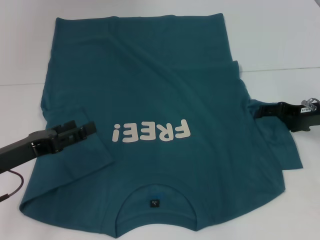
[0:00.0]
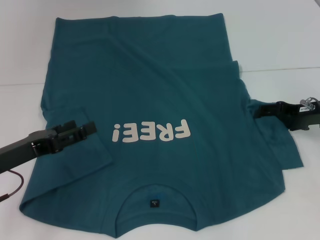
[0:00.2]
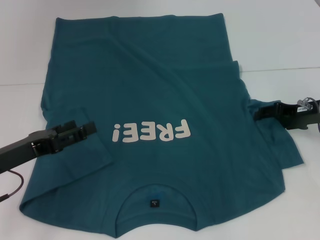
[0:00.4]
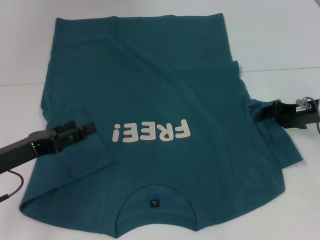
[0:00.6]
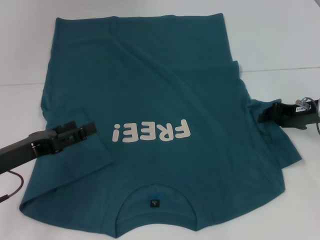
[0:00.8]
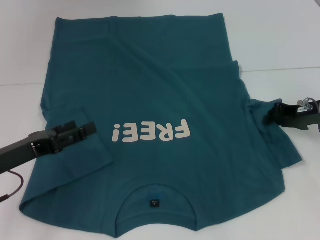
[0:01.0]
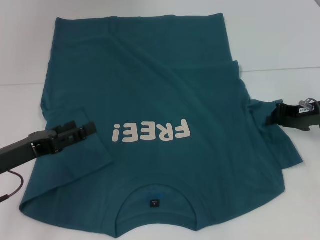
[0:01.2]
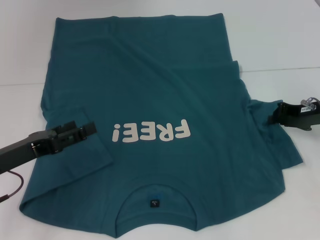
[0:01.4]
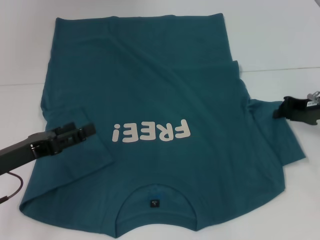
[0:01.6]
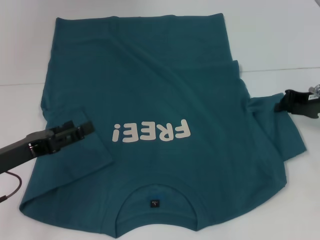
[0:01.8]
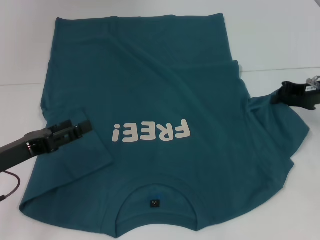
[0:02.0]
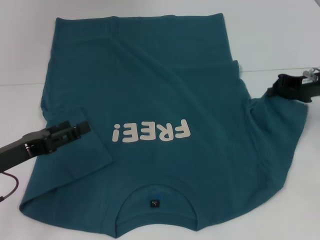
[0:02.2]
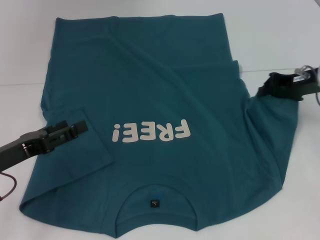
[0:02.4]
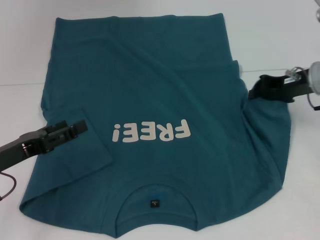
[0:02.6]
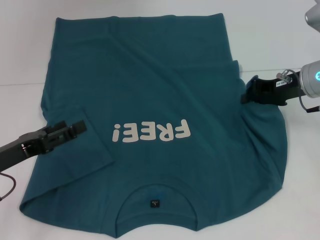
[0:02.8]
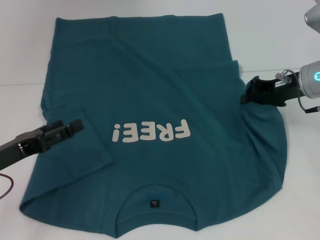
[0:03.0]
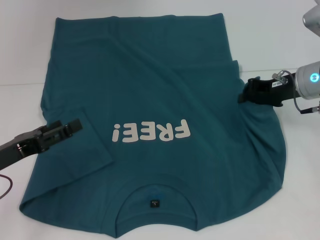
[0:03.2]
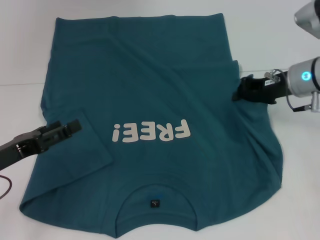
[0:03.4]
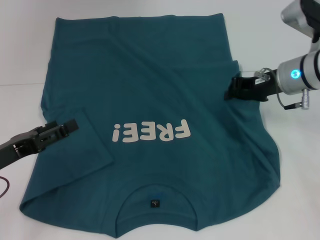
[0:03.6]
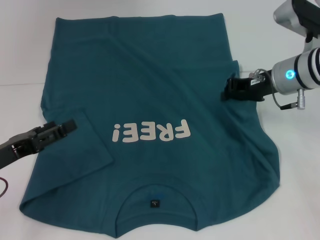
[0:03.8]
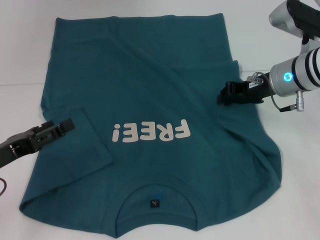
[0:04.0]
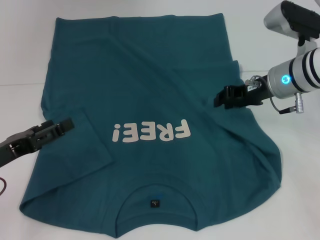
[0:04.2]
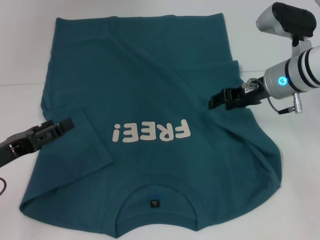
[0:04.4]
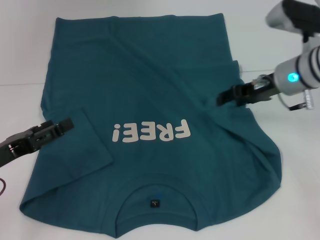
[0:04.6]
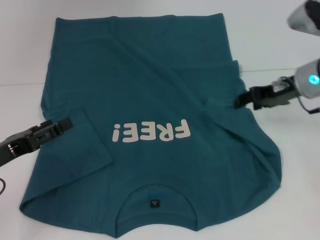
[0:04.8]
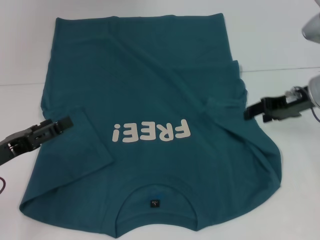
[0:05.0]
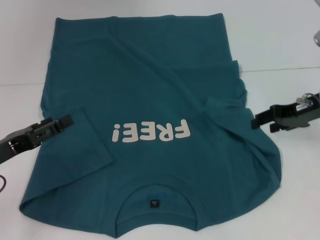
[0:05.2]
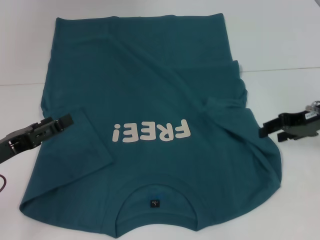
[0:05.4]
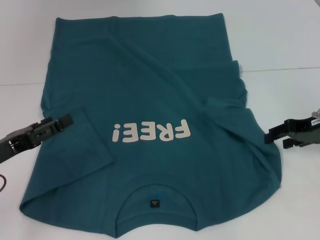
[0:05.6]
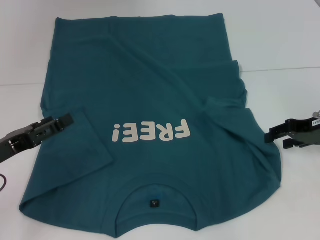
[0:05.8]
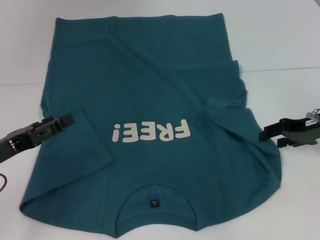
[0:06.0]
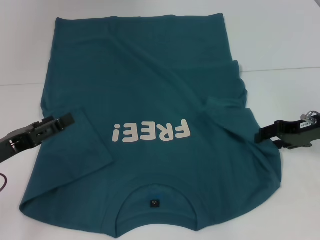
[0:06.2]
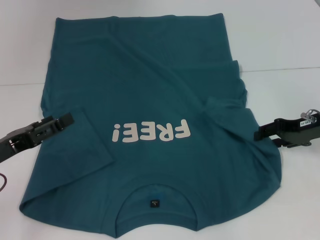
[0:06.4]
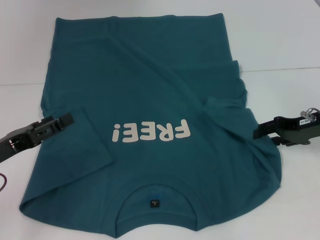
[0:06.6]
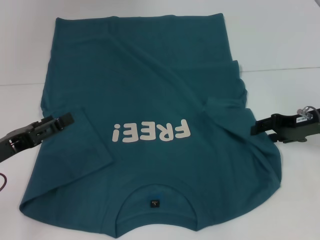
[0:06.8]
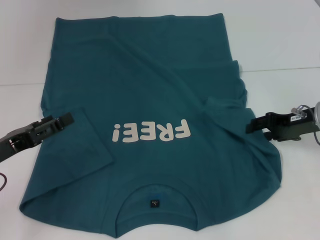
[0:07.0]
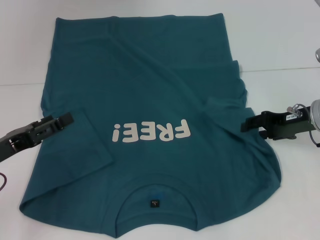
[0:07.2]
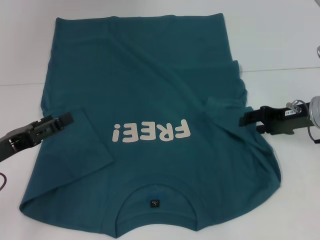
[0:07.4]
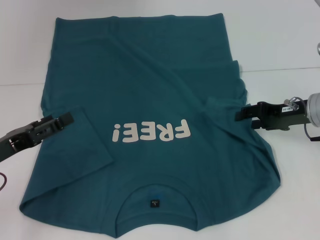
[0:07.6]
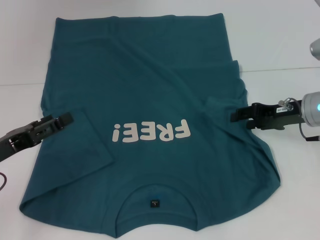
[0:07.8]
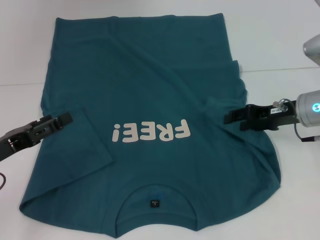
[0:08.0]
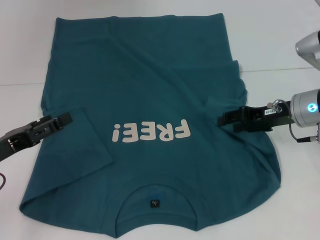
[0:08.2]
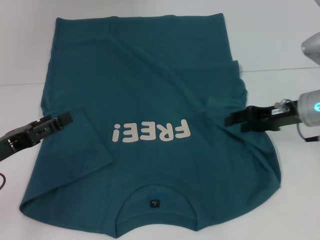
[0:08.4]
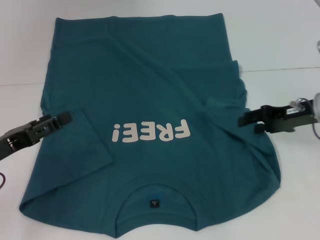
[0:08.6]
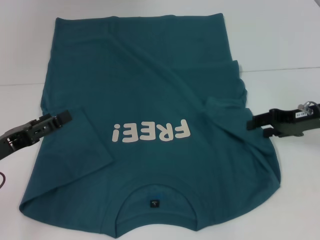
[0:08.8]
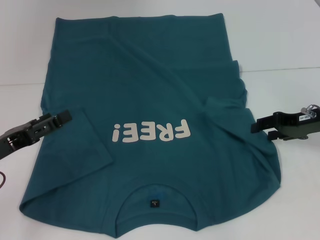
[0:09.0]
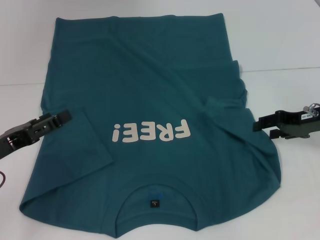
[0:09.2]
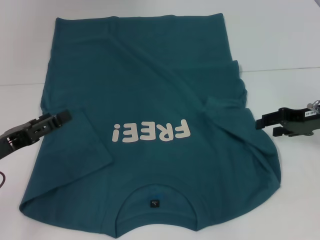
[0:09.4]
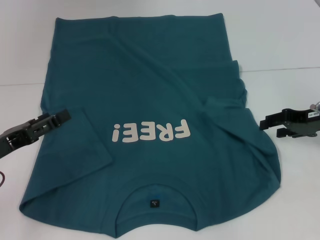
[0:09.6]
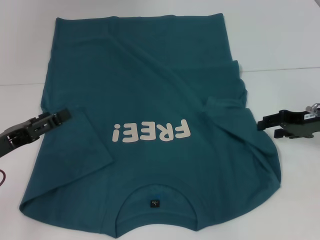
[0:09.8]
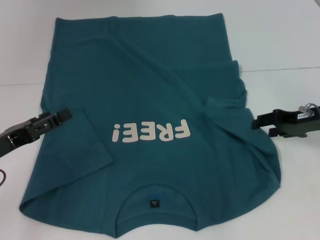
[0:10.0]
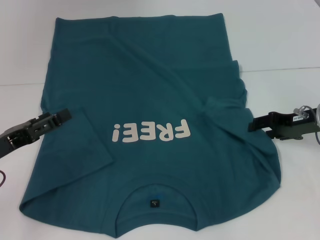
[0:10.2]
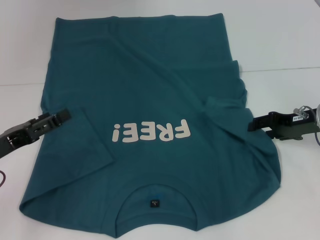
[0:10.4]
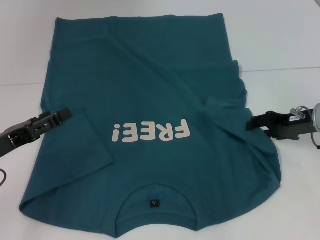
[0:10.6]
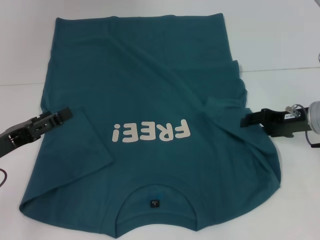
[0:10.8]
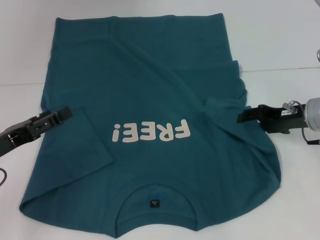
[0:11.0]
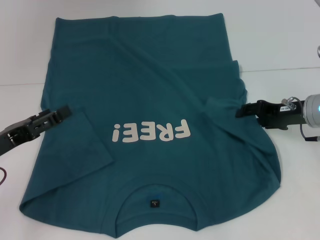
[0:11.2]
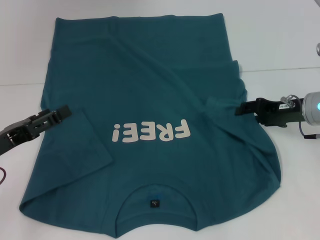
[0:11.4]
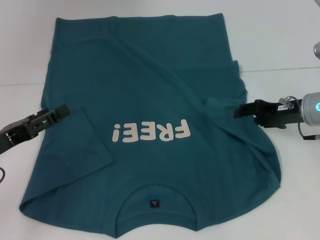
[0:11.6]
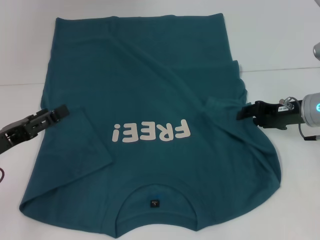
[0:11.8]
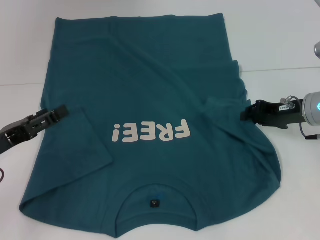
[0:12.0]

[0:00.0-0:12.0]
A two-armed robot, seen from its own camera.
0:00.0 to 0:01.6: The right gripper closes up.
0:01.6 to 0:03.0: The right gripper travels to the left by some 5 cm.
0:03.0 to 0:04.4: The right gripper is displaced to the left by some 5 cm.
0:04.4 to 0:06.0: The right gripper travels to the right and backward by about 10 cm.
0:06.0 to 0:12.0: The grippers move only a little.

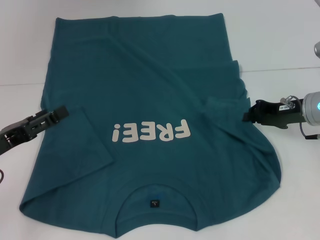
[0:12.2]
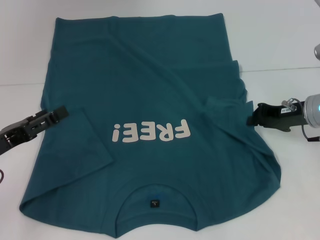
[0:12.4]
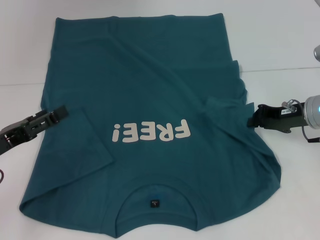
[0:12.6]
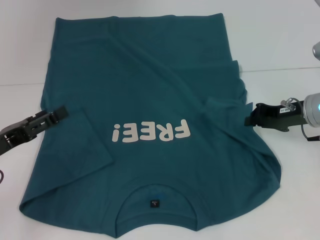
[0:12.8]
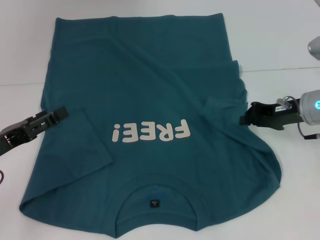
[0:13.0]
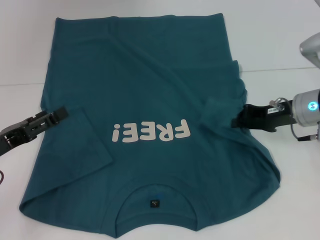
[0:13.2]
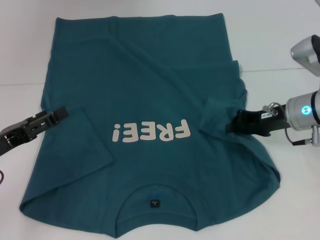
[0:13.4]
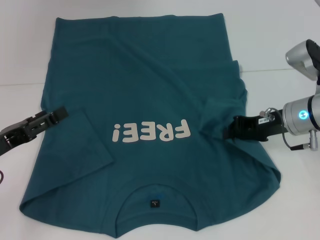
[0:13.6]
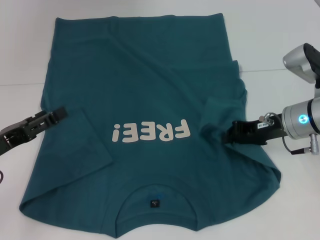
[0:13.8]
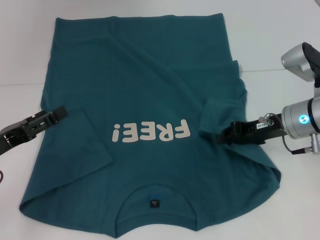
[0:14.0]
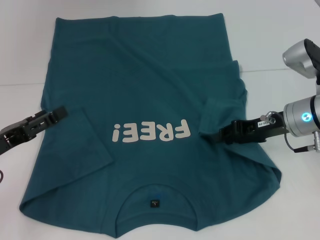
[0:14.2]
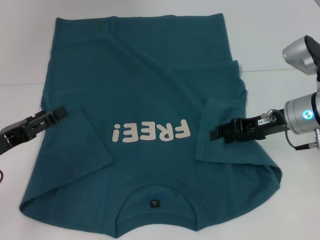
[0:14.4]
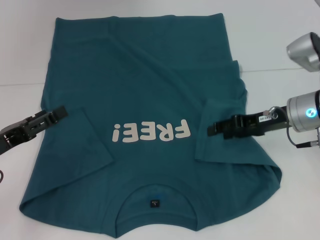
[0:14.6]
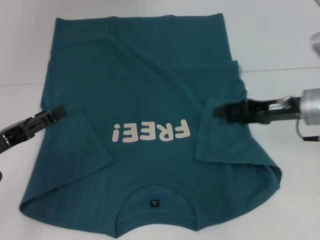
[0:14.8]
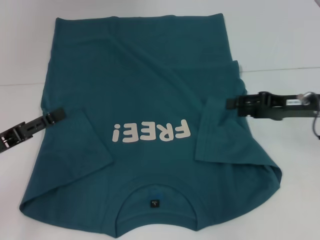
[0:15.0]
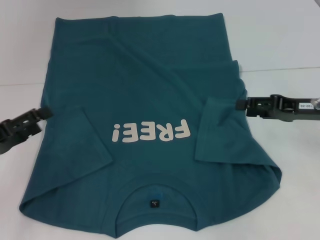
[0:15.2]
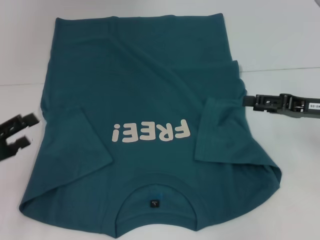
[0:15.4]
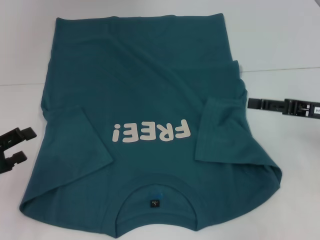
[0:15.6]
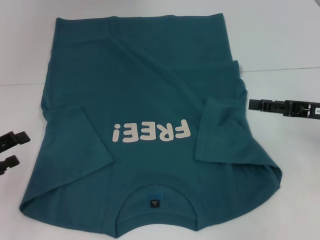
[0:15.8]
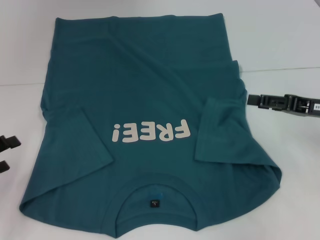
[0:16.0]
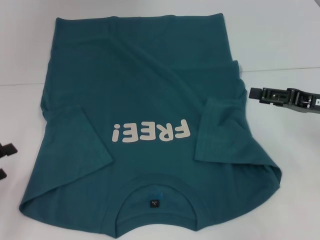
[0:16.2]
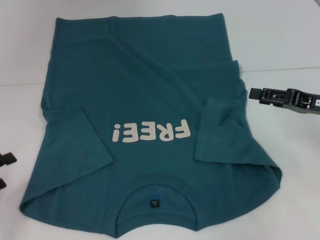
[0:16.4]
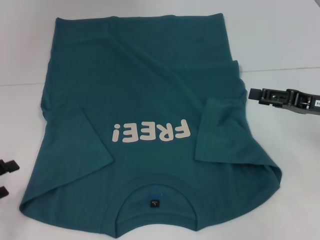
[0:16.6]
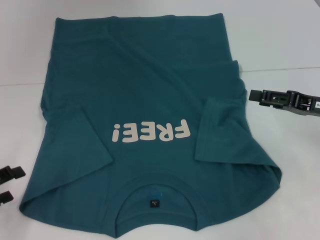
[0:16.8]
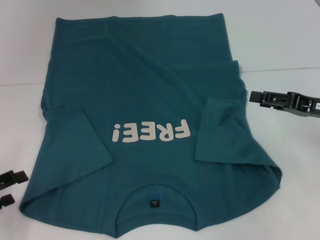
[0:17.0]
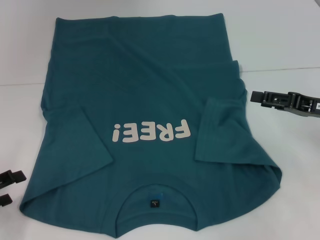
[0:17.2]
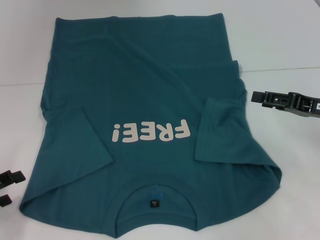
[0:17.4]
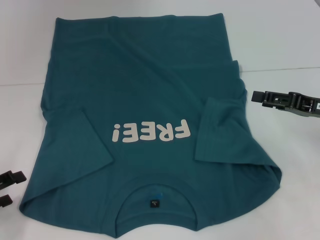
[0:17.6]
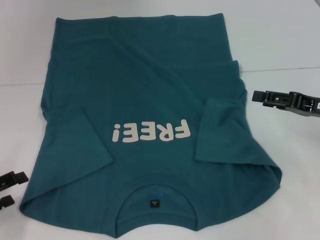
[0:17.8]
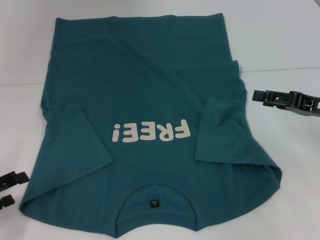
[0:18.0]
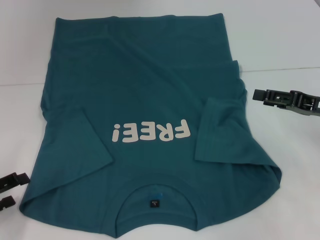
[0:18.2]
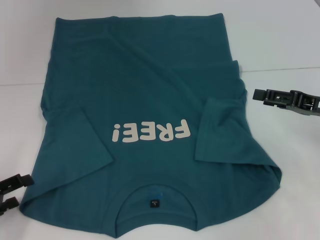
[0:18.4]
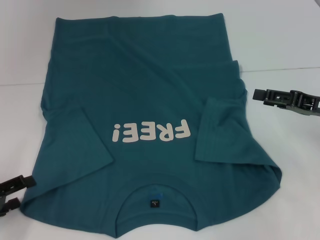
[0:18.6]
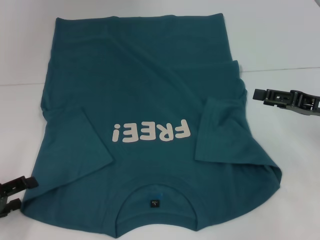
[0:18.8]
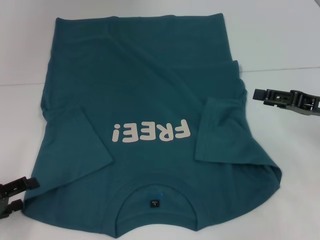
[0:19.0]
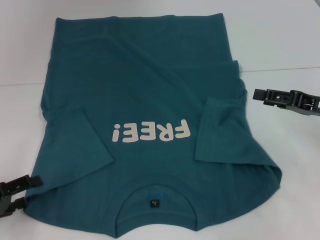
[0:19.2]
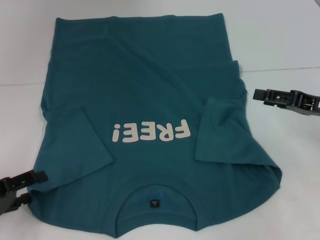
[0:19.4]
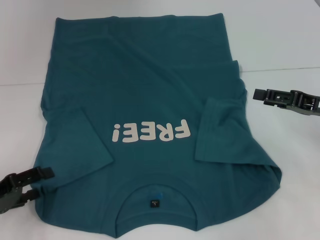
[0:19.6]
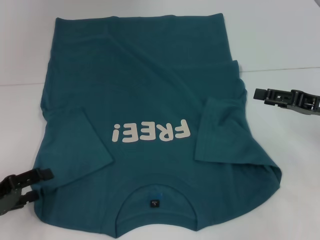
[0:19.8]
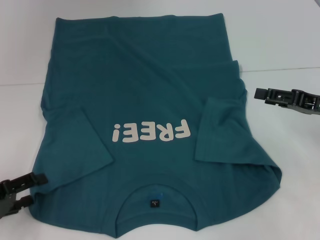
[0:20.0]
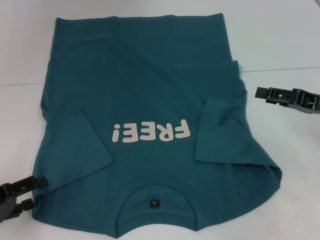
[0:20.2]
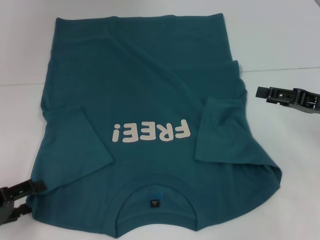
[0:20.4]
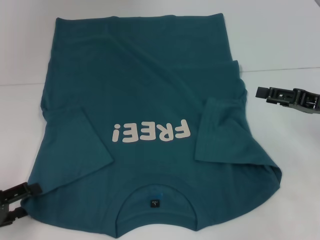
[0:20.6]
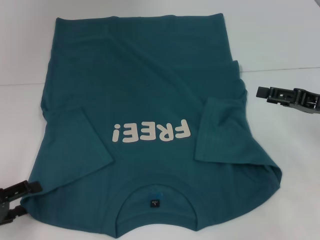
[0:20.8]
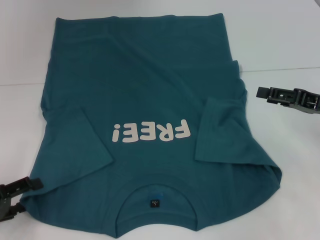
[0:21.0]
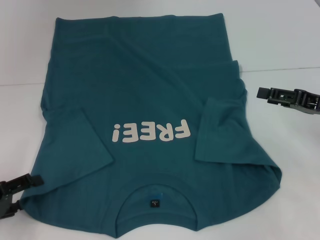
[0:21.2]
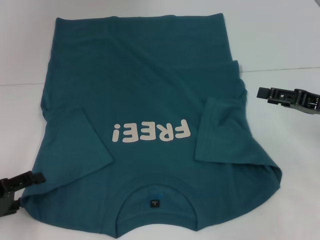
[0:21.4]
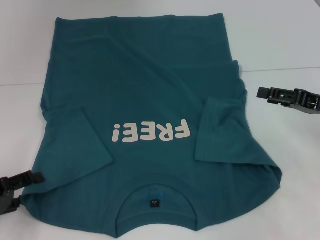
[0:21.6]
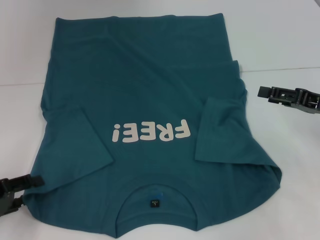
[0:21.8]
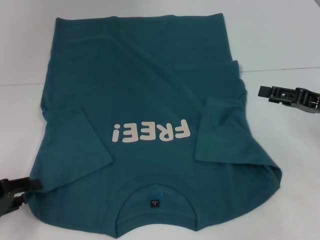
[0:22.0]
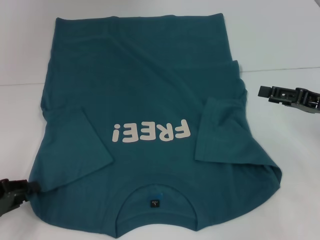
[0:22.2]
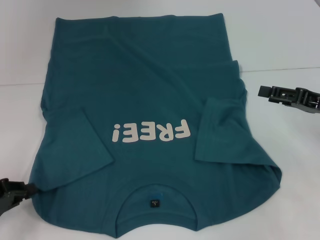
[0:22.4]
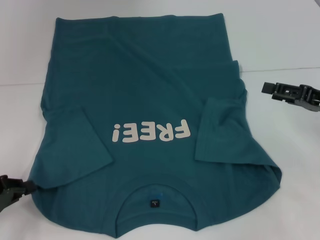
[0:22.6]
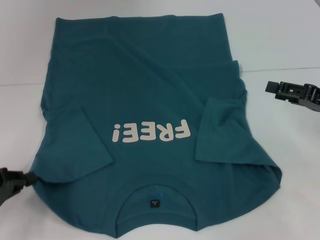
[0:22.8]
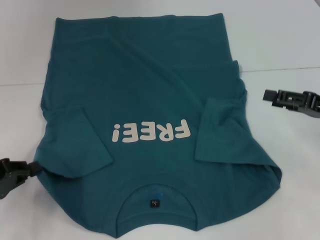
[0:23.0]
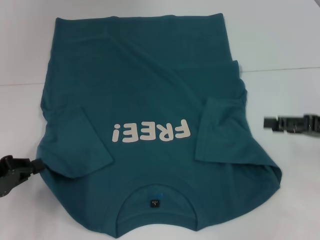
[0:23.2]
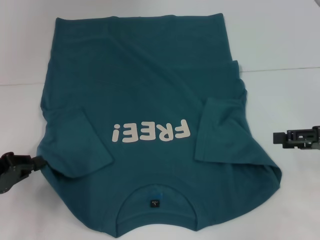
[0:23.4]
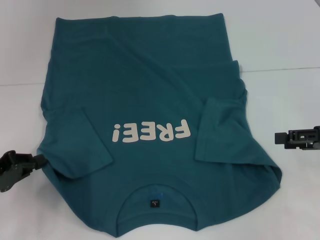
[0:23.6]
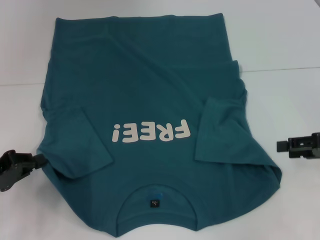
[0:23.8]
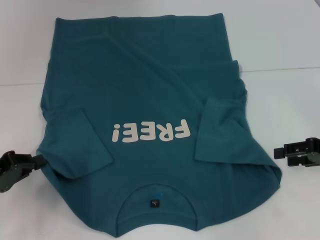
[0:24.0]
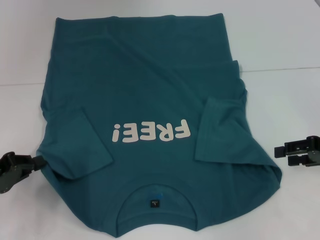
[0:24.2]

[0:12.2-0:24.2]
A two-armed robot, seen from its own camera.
Step, 0:12.2 to 0:14.4: Fold the bottom right sleeve to the right.
Step, 0:14.6 to 0:22.2: Grab the bottom left corner with your left hand.
0:12.2 to 0:13.8: There are only small adjustments of the grippers.
0:13.8 to 0:15.2: The right gripper shifts approximately 5 cm to the right, and opens its fingers.
0:15.2 to 0:16.6: The left gripper shifts by some 5 cm.
0:16.6 to 0:21.2: The grippers make only small movements.
0:21.2 to 0:22.6: The left gripper closes its fingers.
